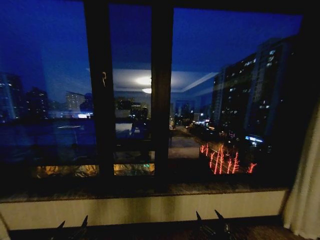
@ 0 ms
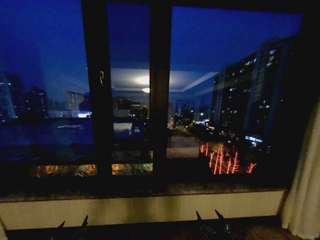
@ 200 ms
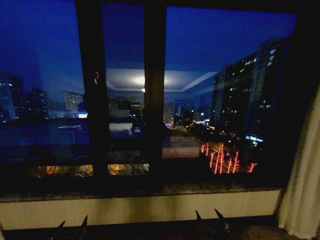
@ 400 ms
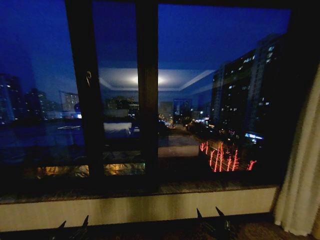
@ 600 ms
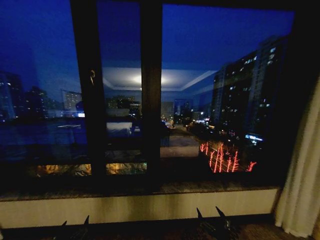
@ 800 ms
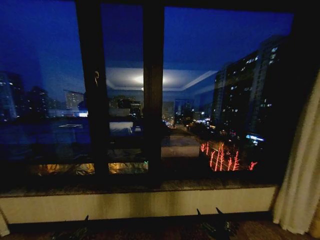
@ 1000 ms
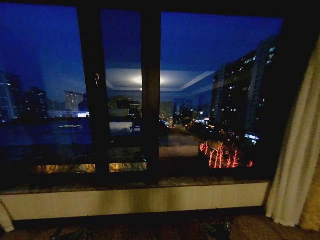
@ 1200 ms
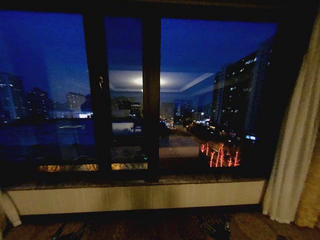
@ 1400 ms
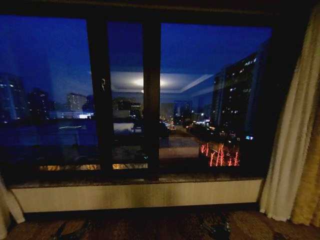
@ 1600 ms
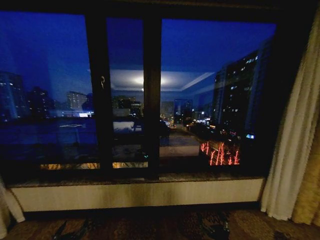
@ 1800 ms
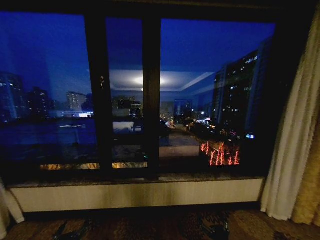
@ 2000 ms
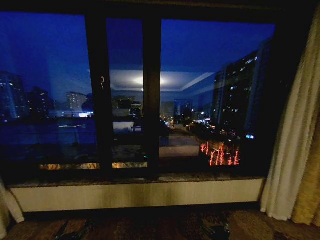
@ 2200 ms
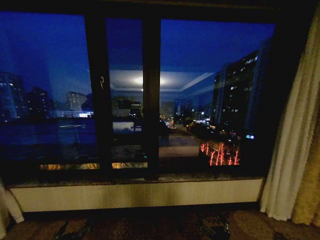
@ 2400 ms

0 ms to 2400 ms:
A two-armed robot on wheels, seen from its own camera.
Task of the whole recording: Open the curtains by pulling them apart, changing their state from closed to fully open.
1200 ms to 2400 ms: Both grippers stay put.
